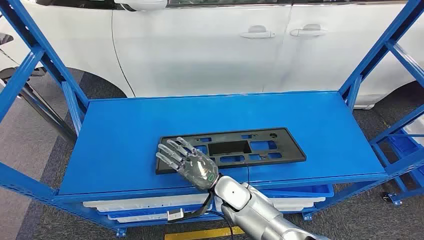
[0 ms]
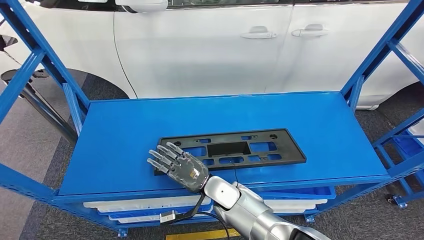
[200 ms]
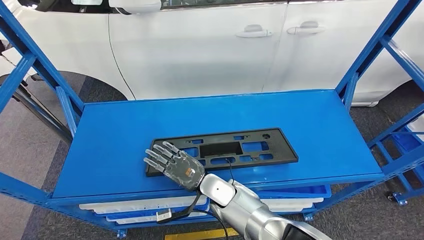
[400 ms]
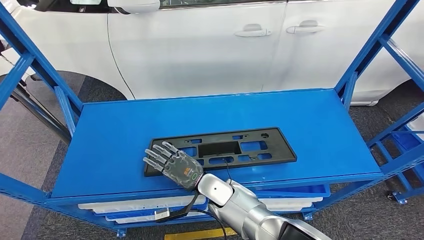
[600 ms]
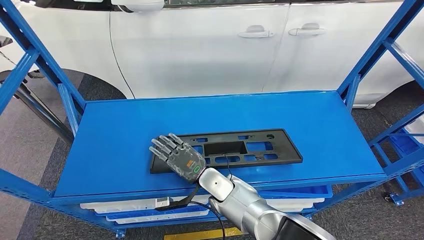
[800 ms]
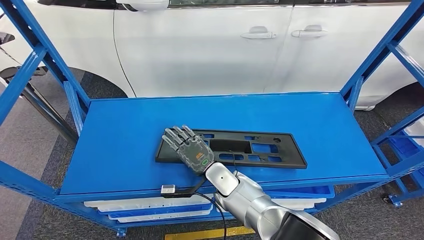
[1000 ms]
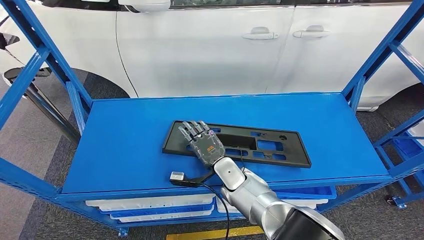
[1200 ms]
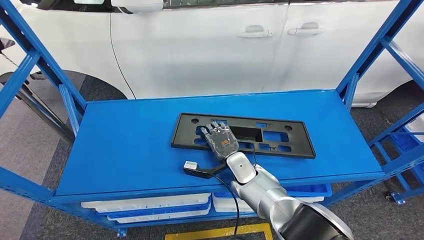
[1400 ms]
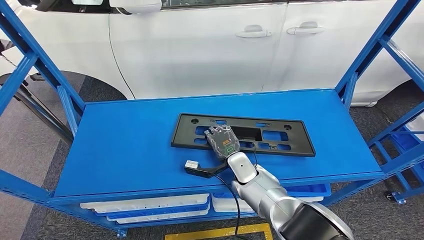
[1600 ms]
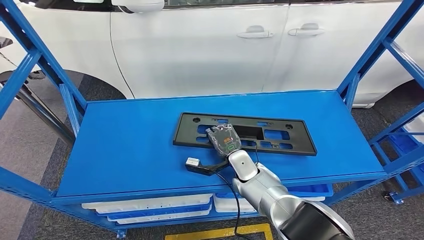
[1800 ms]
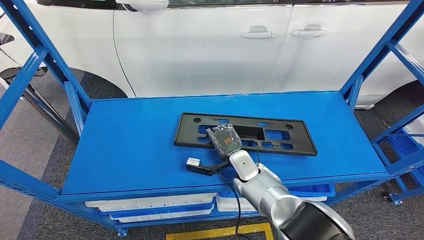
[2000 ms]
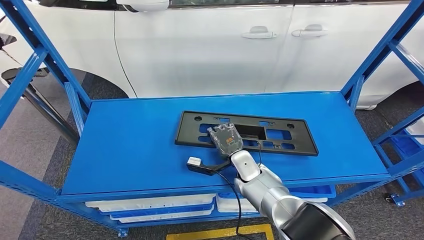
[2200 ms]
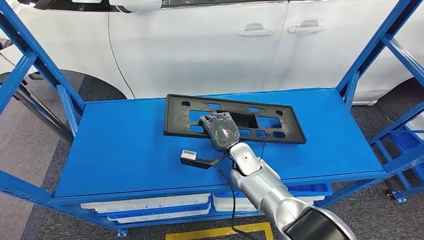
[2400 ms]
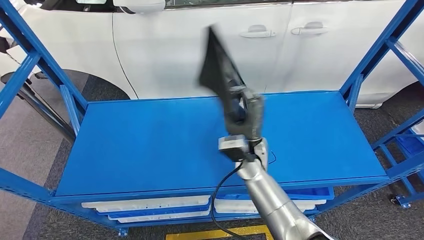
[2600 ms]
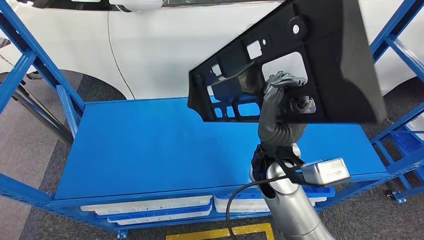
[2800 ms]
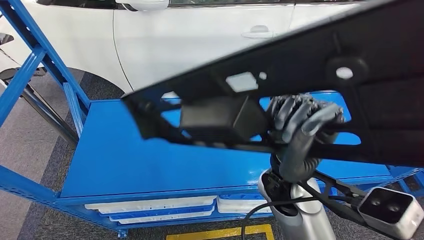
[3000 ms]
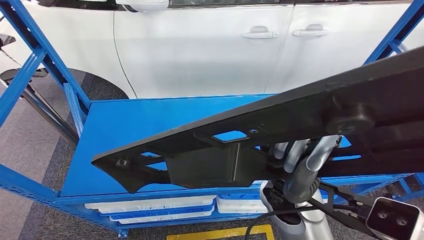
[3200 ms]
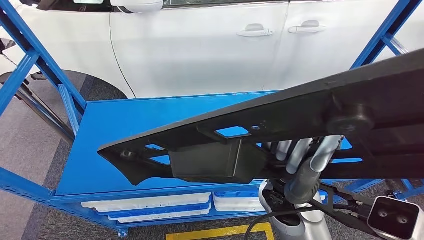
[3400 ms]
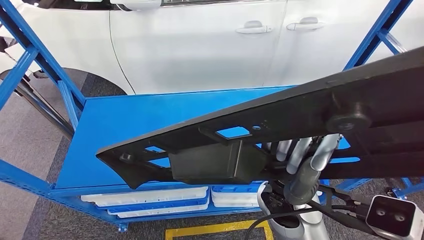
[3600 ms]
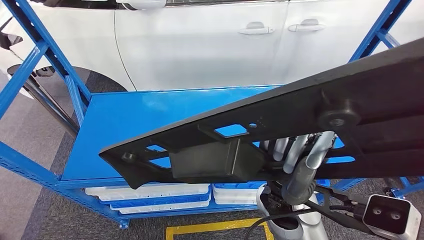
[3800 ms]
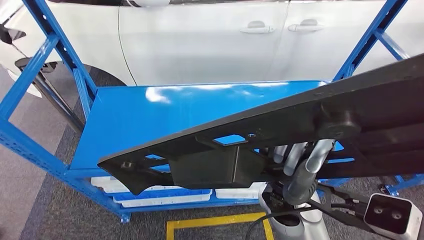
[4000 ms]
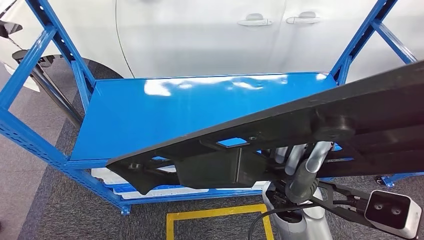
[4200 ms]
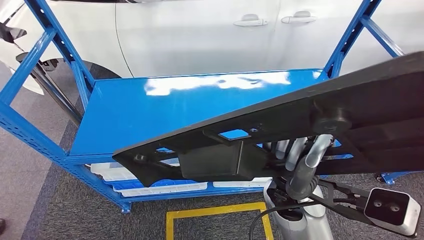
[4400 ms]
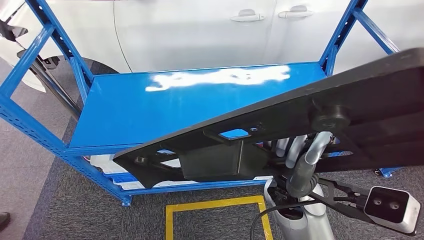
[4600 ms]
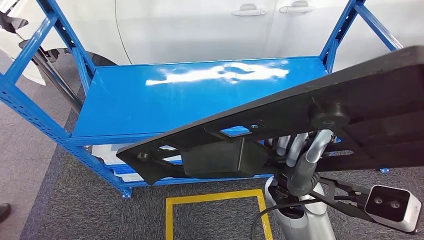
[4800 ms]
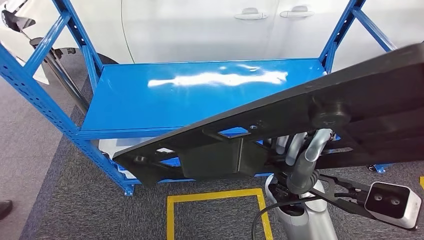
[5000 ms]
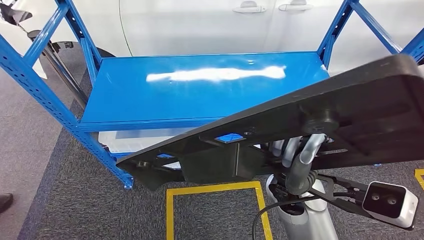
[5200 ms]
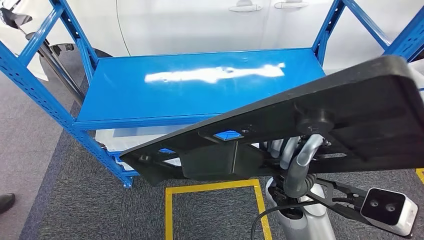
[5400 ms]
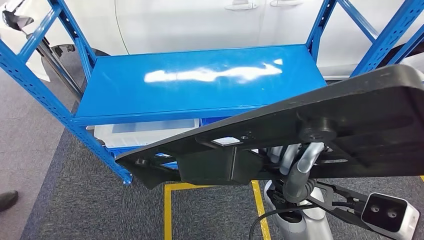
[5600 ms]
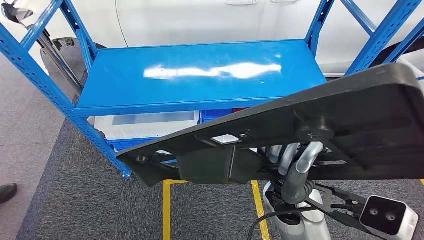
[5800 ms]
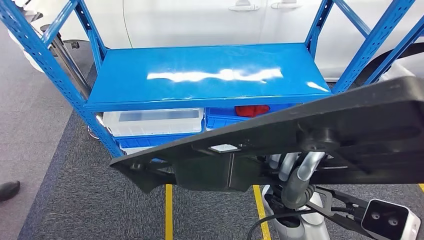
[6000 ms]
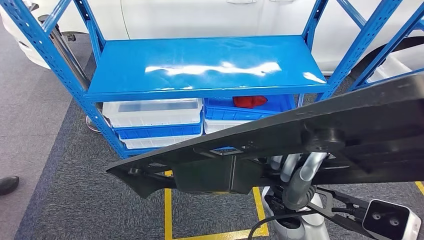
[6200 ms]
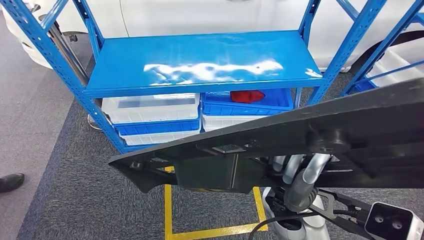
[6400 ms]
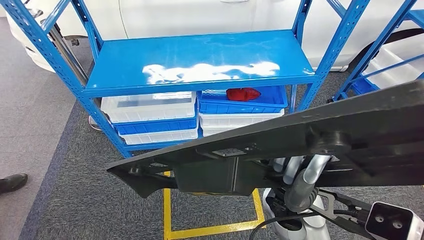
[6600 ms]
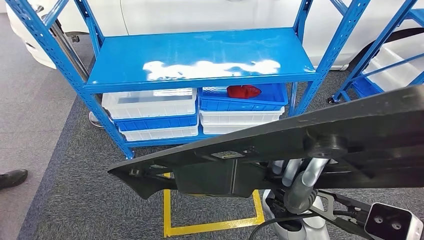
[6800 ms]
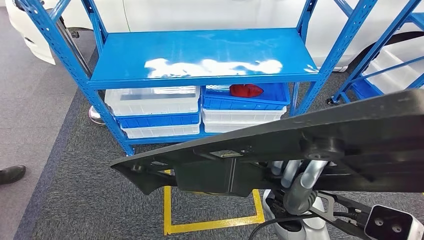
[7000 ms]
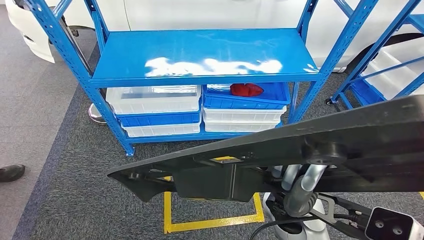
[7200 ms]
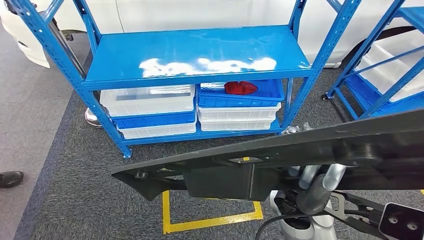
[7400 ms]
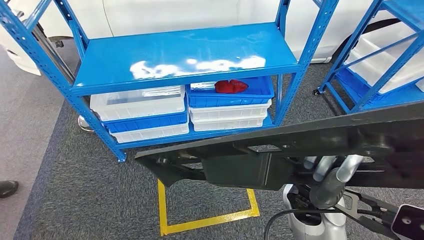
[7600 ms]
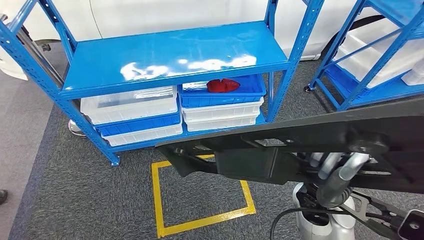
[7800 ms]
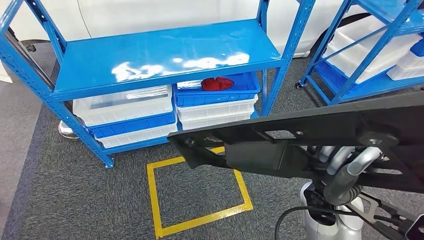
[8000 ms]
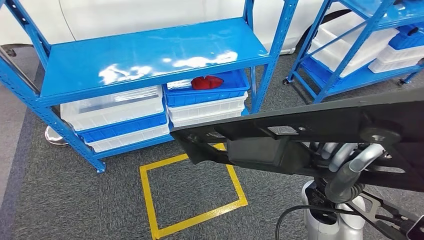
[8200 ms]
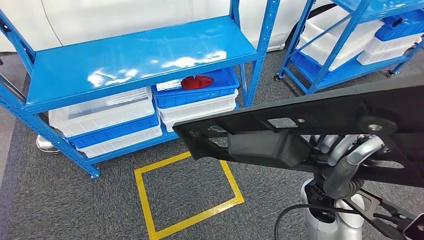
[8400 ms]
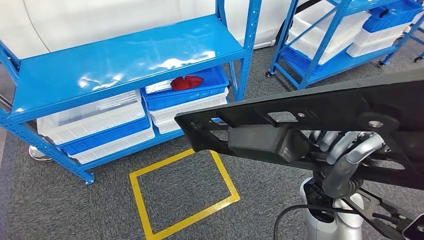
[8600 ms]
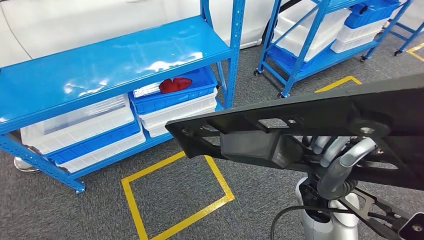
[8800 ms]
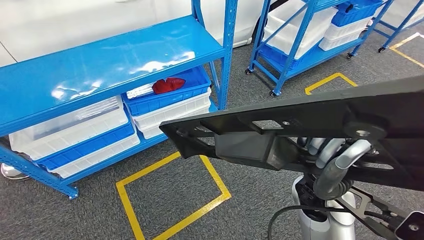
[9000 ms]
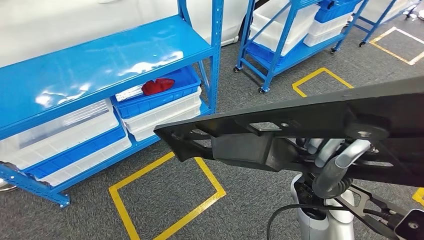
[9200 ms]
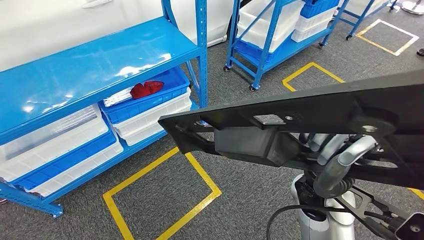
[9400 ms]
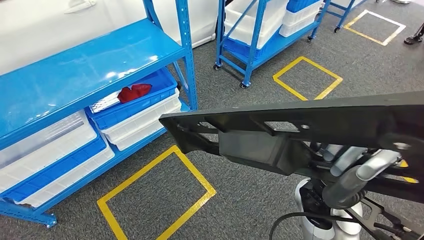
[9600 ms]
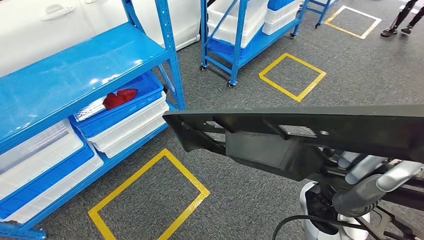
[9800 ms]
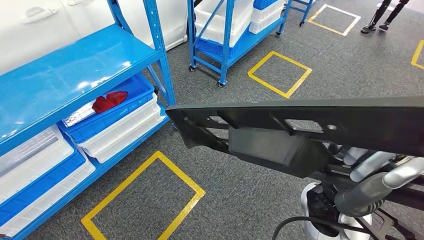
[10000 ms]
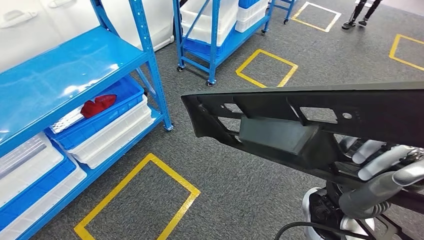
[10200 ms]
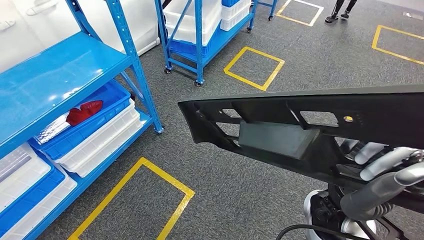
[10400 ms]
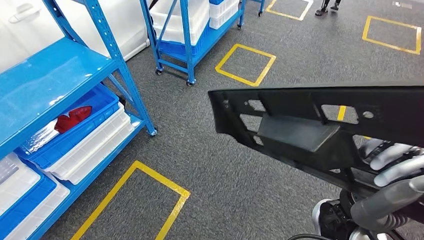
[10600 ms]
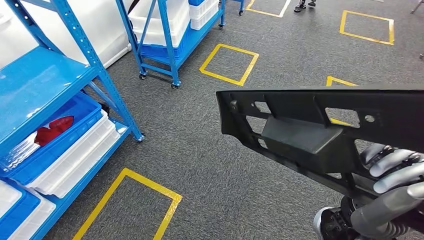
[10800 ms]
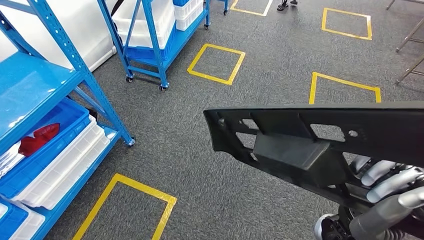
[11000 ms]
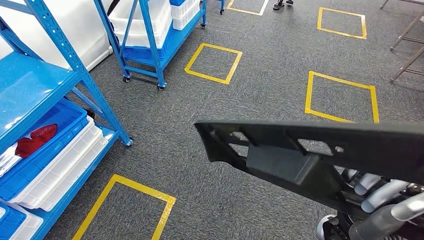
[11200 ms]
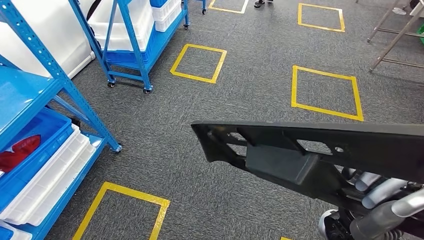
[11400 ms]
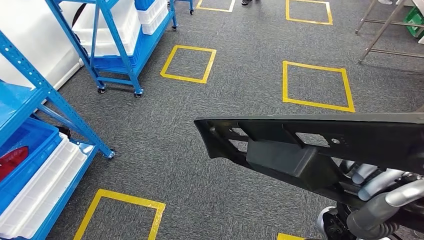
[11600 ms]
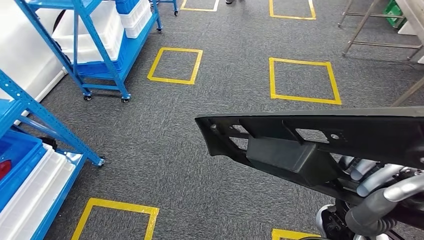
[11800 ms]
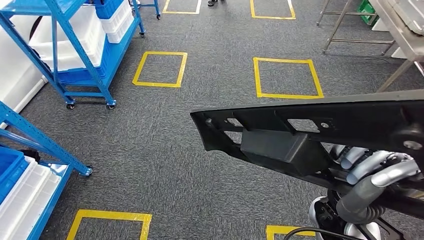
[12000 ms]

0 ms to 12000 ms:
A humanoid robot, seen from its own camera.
Step, 0 ms to 4800 ms: Pick up the large material from the shelf.

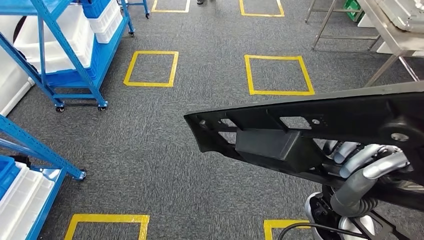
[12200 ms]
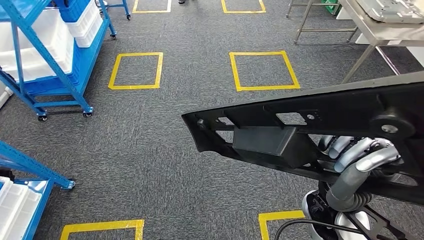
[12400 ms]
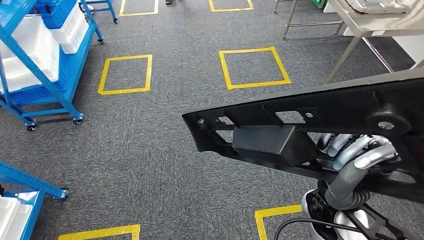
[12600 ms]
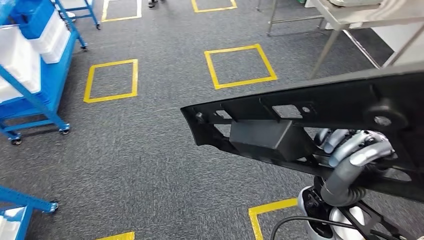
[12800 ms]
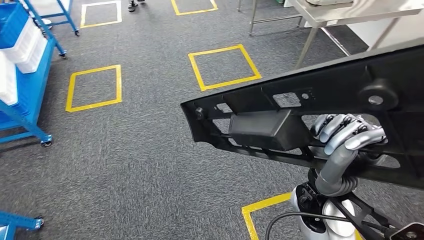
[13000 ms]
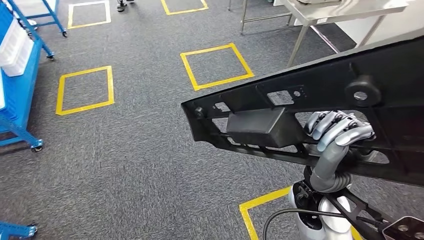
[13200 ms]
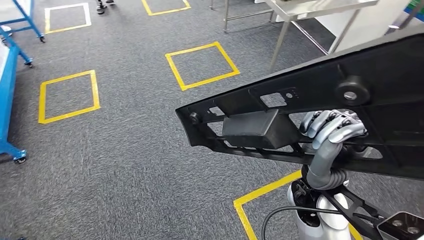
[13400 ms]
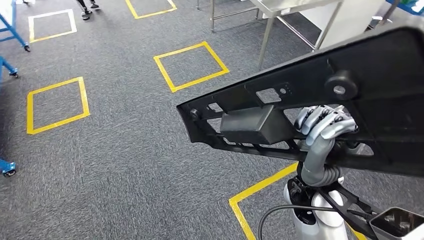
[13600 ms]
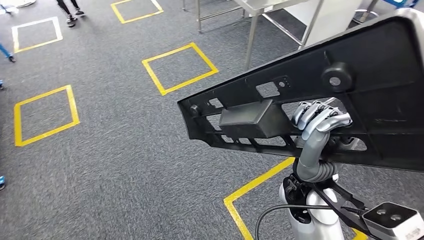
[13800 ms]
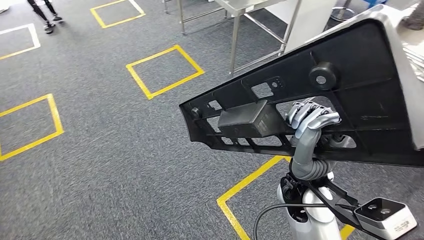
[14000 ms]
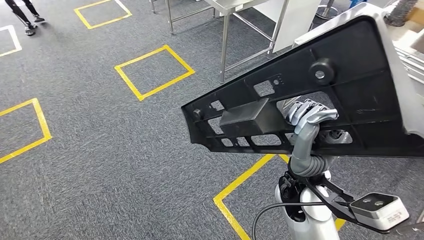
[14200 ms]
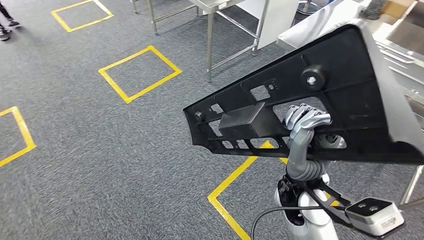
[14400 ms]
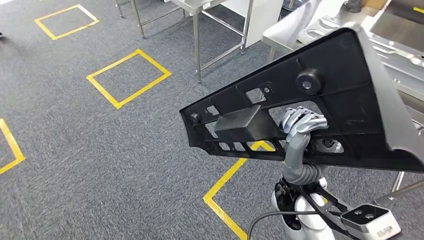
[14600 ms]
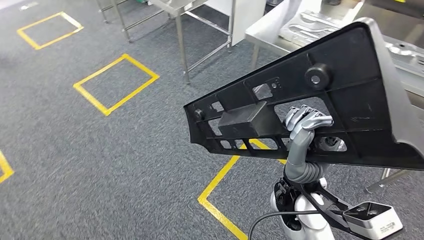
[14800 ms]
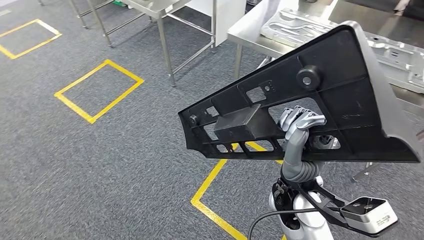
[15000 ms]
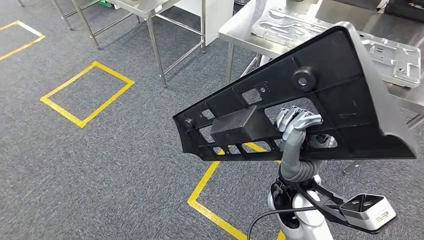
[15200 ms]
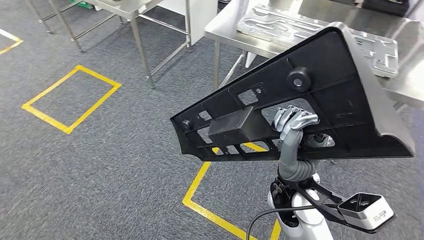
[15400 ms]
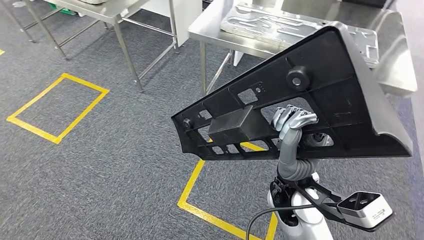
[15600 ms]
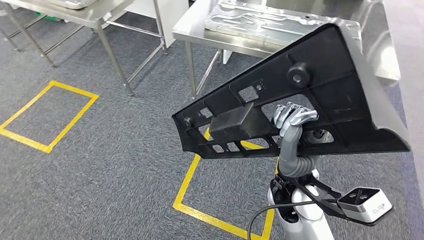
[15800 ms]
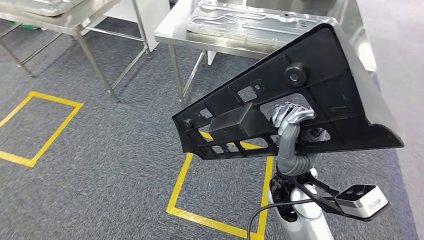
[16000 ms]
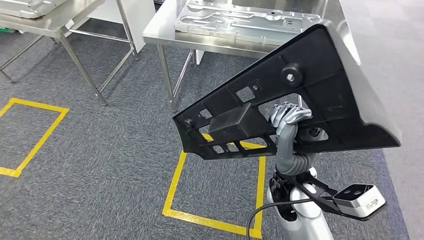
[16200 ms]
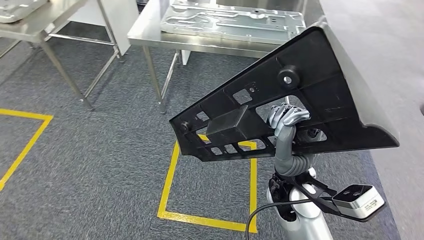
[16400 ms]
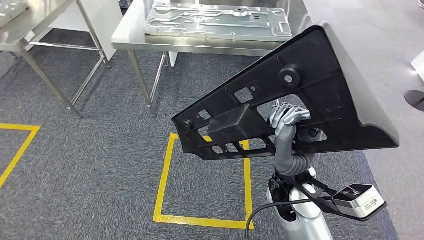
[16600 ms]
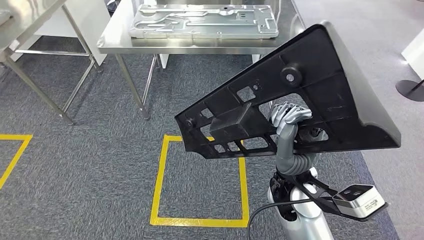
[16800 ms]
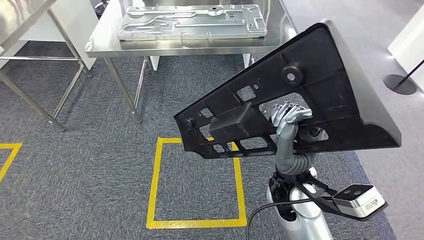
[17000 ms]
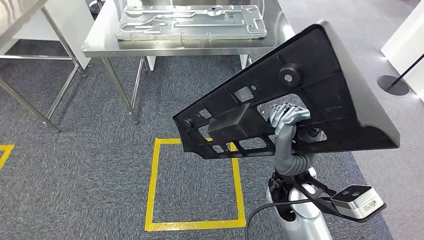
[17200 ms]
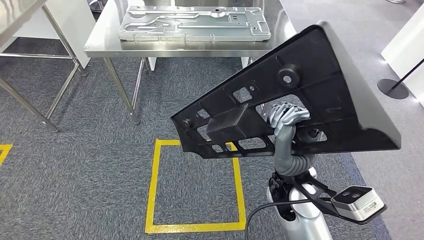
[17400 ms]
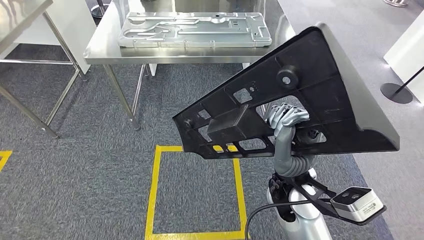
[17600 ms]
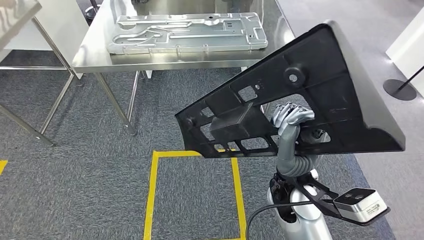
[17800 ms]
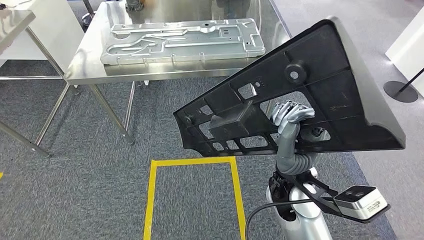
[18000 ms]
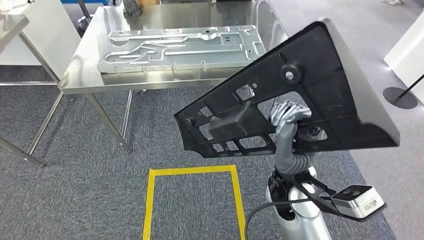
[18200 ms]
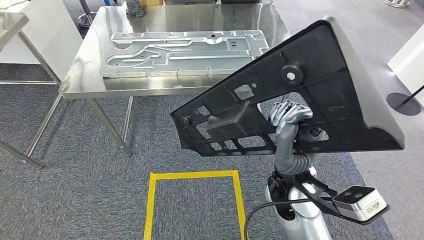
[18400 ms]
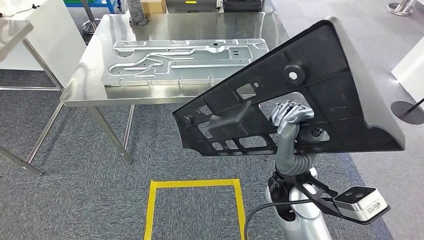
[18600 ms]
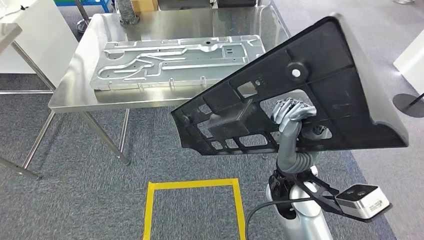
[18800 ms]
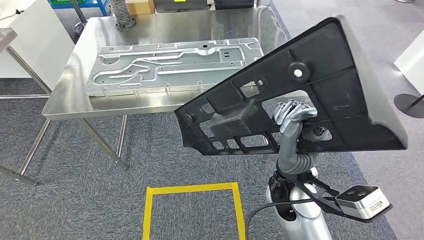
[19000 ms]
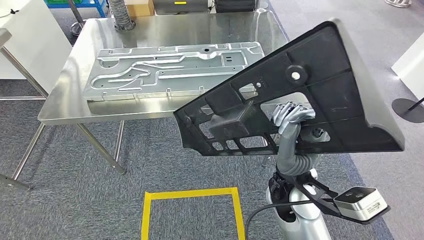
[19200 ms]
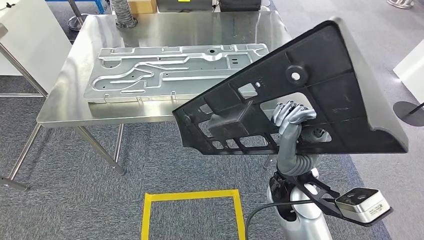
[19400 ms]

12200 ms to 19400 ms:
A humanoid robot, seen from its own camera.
Step, 12200 ms to 18400 ms: Move the large material to the workbench.
